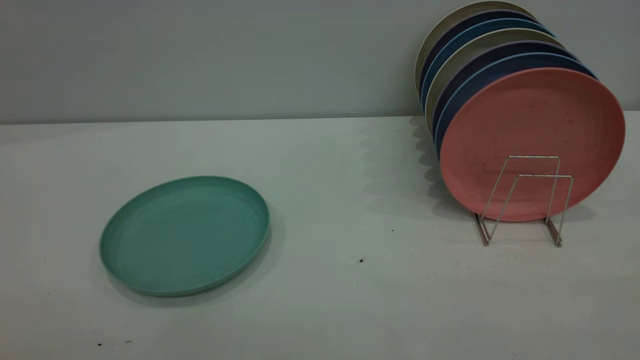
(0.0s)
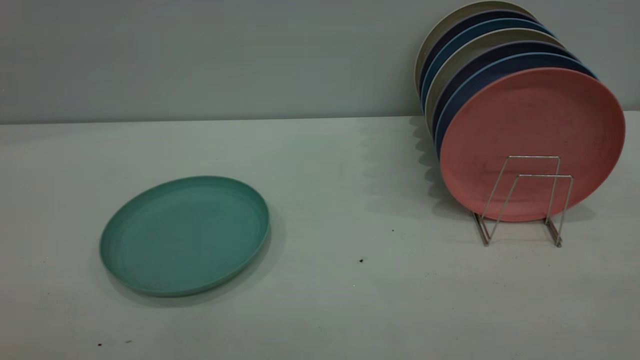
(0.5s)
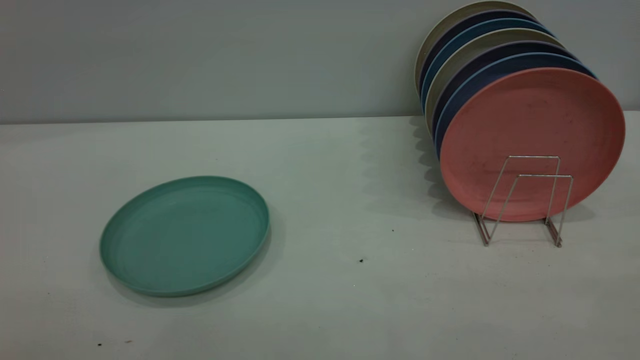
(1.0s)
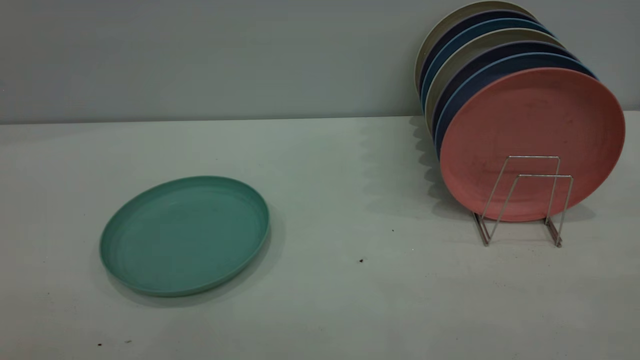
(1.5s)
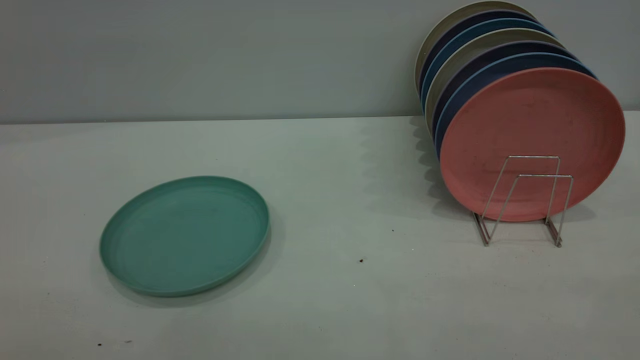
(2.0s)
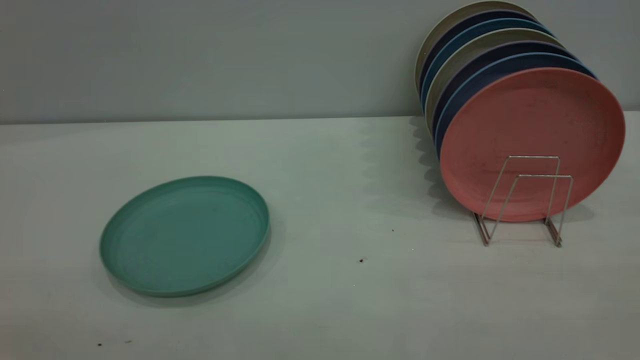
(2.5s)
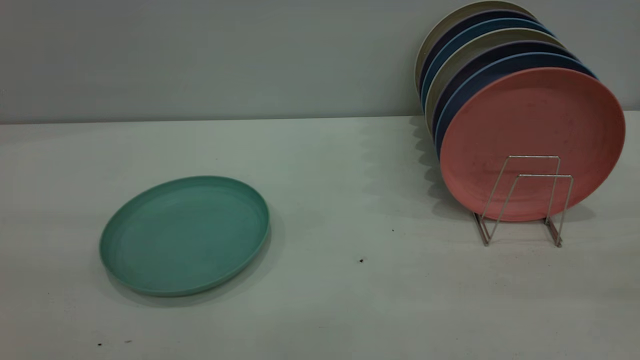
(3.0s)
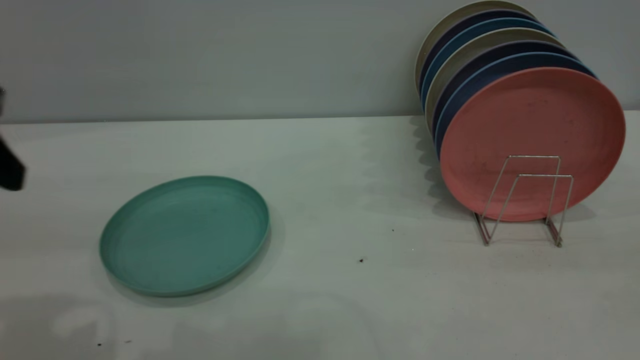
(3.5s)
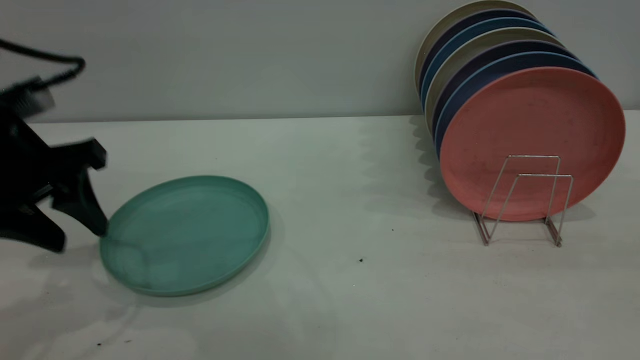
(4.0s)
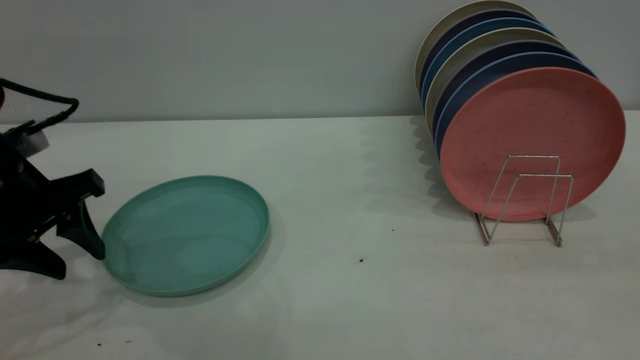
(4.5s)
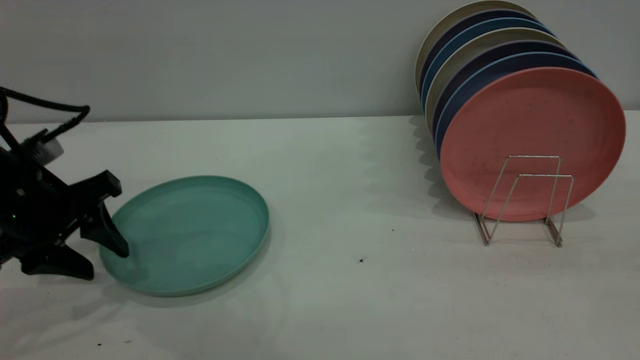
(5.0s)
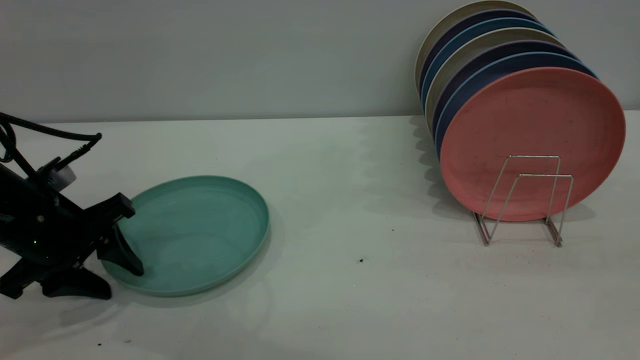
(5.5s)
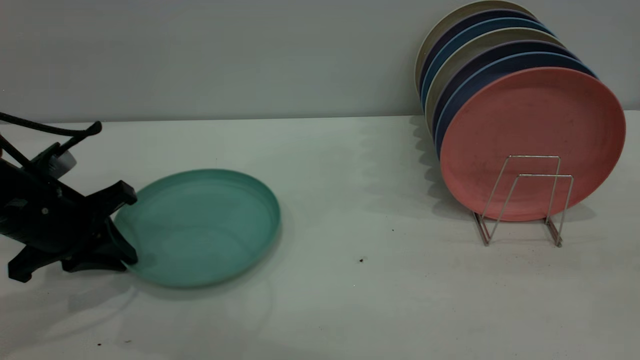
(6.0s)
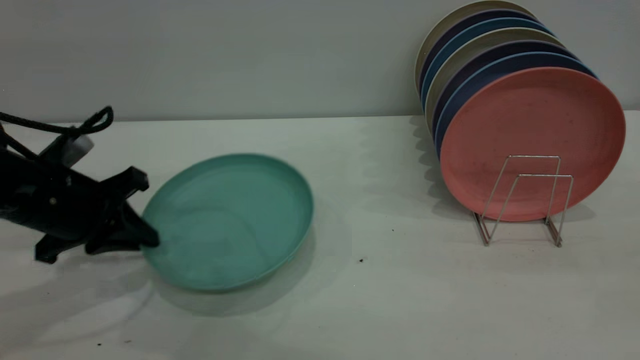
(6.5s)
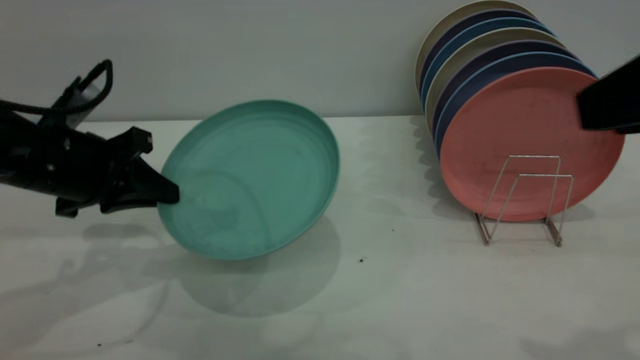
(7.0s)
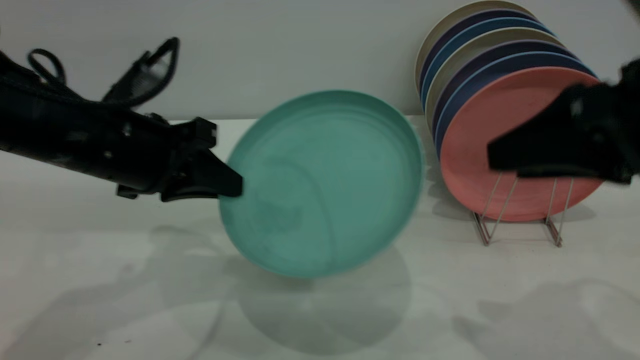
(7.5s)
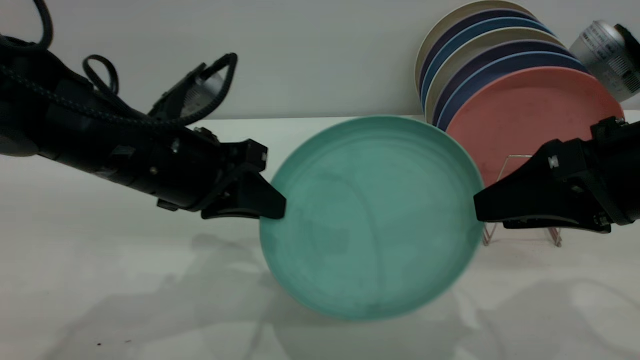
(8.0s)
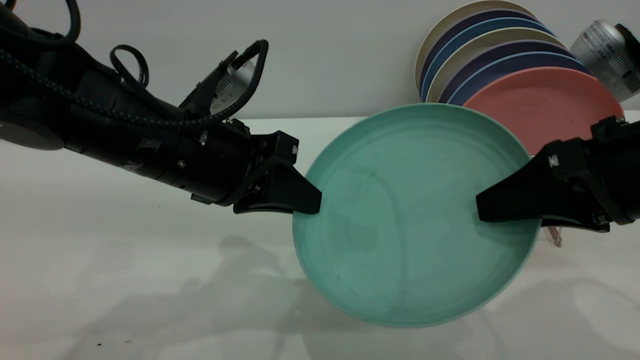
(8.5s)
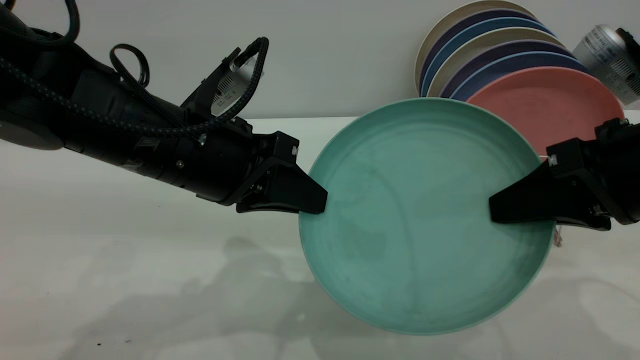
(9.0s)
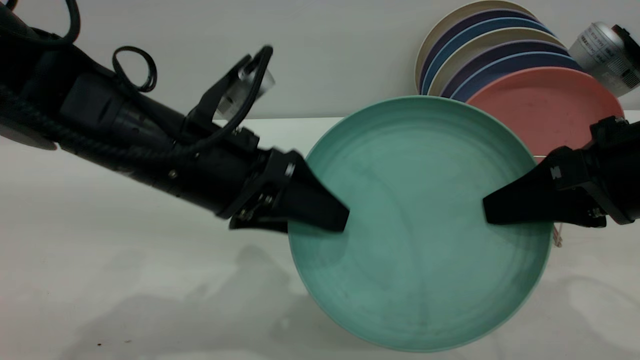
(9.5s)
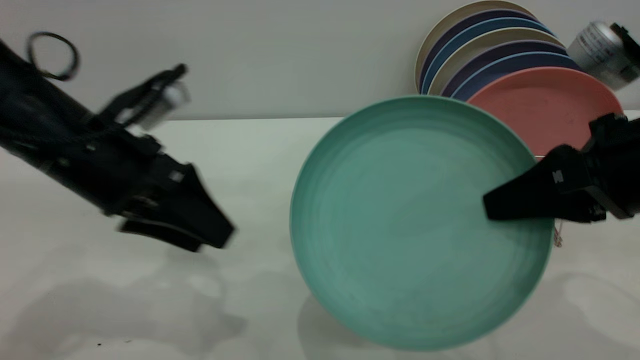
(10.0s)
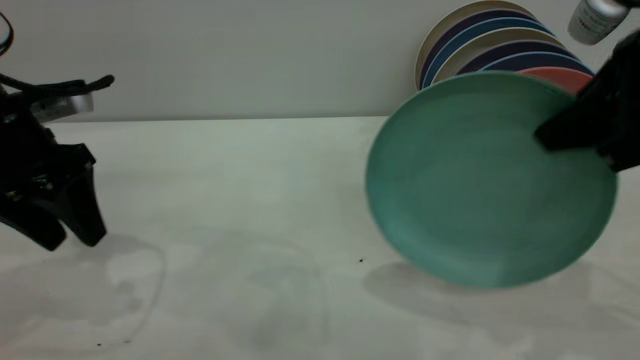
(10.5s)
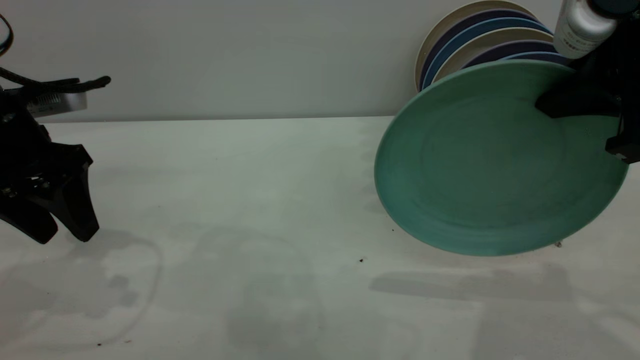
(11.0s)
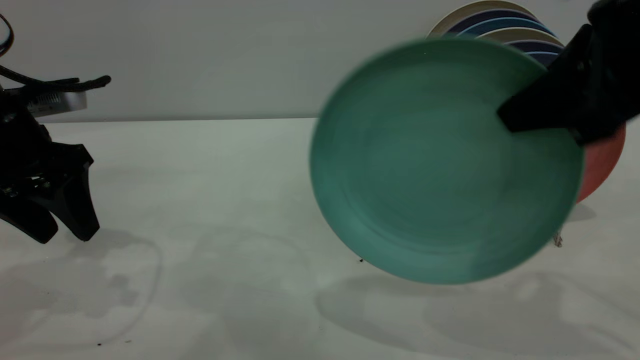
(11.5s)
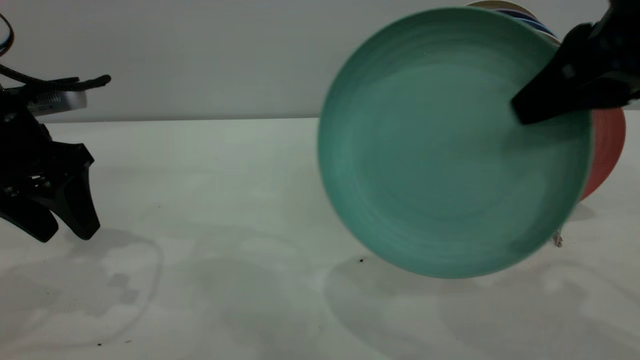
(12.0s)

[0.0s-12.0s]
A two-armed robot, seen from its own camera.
Task of the whole recording: the left gripper grasp the green plate, the left gripper pass the green plate to the right gripper, and the right gripper place the green plate on the plate rack.
Step, 0.0s to 6.5s: Pick up the plate with the left gripper.
Step, 7.5s to 10.0s: Pass the plate from the left gripper to the right gripper.
0.0s to 2.0s: Both grippers stay put.
2.0s to 4.0s: The left gripper goes approximately 35 cm forward and downward.
4.0s to 6.0s: The left gripper is displaced downward by about 10 cm, and closes.
6.0s to 8.0s: The right gripper is displaced downward and forward by some 15 cm, while the left gripper heads to the right and upward, covering roughly 15 cm.
8.0s to 10.0s: The left gripper is displaced to the left by about 5 cm, and opens up. The right gripper closes.
10.0s to 12.0s: The right gripper travels upward by roughly 10 cm, while the left gripper goes about 5 cm to the left.

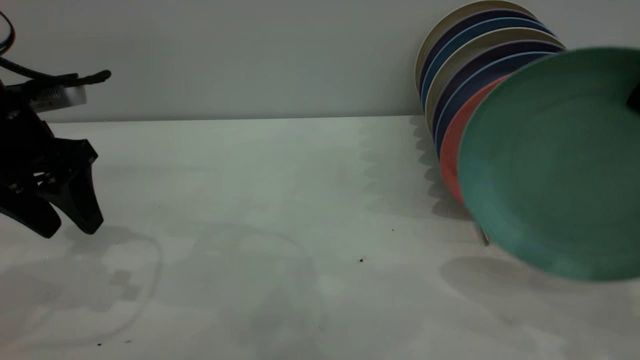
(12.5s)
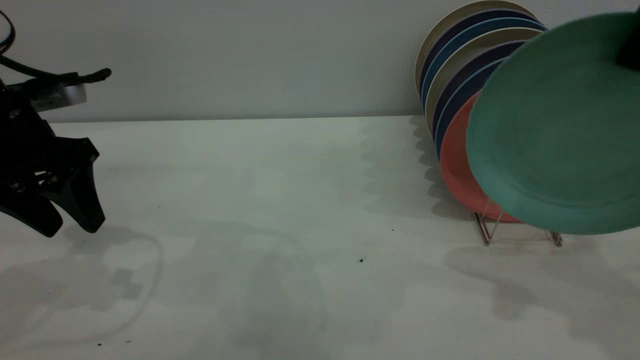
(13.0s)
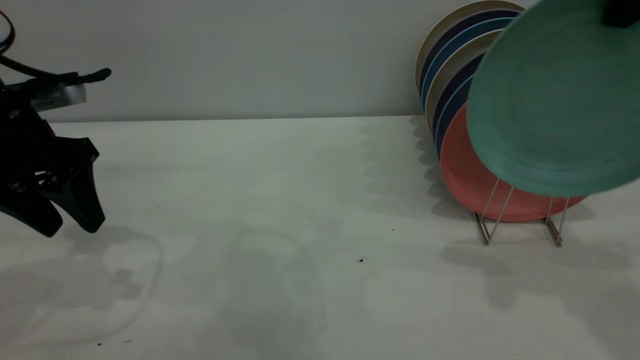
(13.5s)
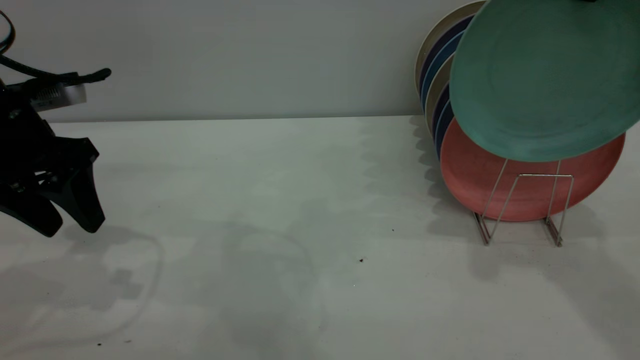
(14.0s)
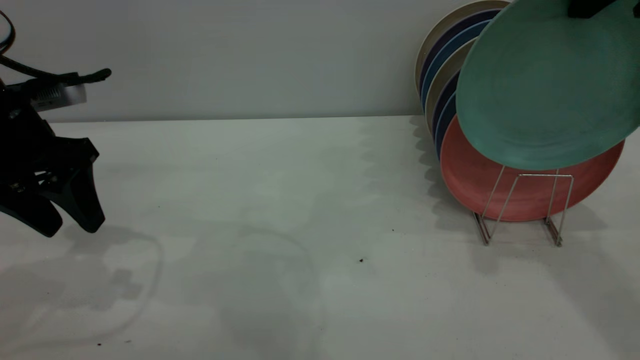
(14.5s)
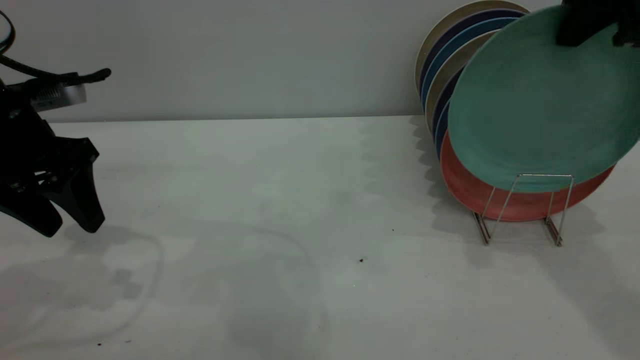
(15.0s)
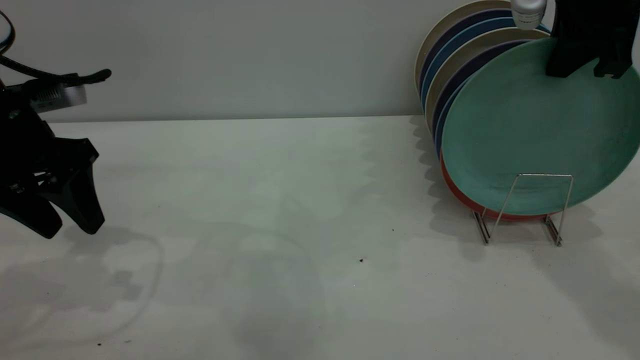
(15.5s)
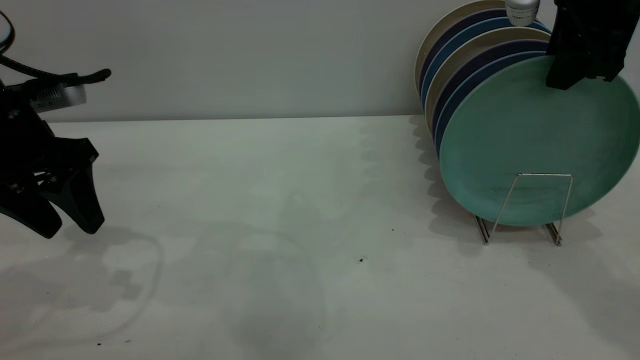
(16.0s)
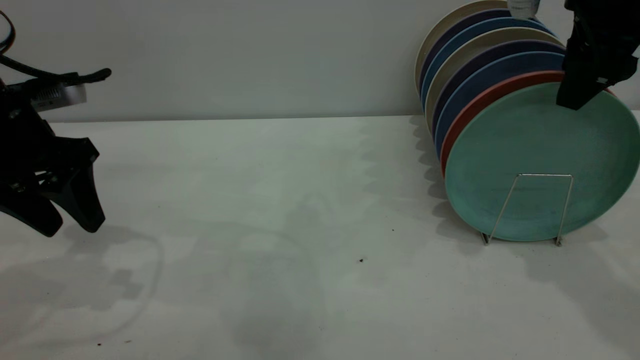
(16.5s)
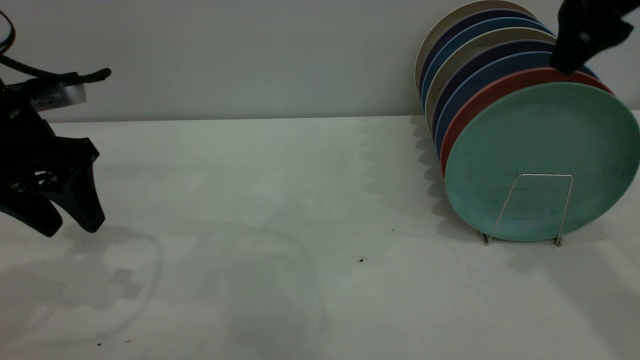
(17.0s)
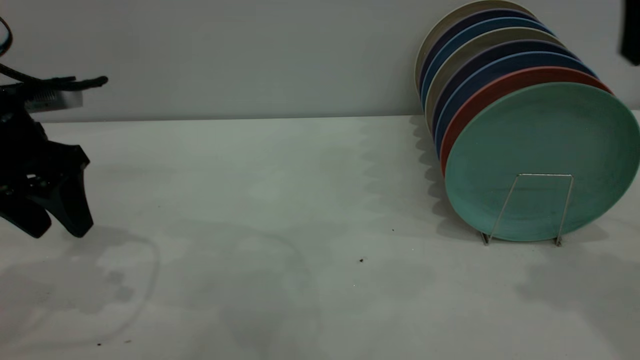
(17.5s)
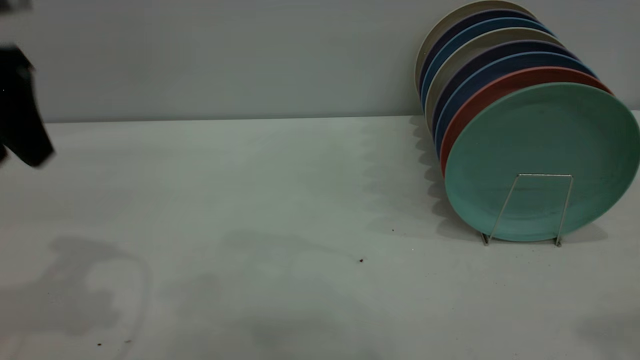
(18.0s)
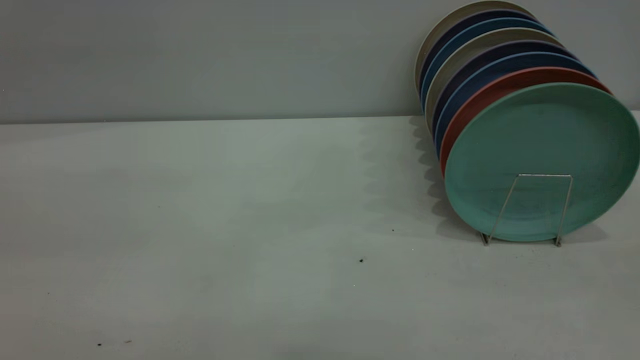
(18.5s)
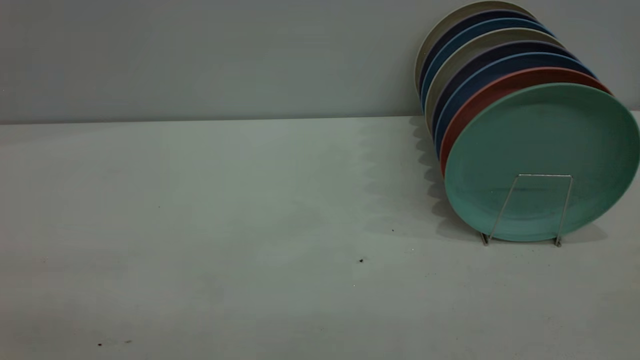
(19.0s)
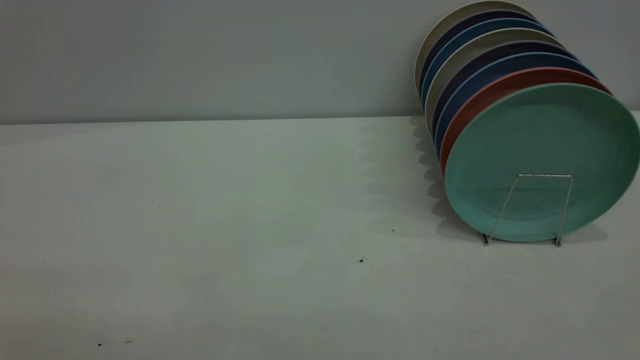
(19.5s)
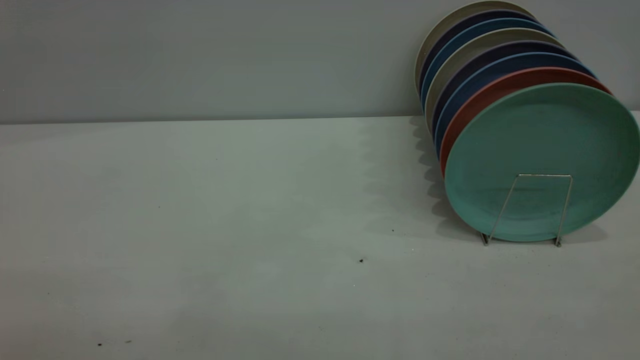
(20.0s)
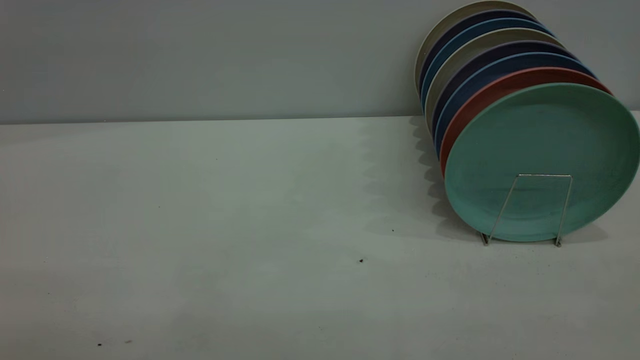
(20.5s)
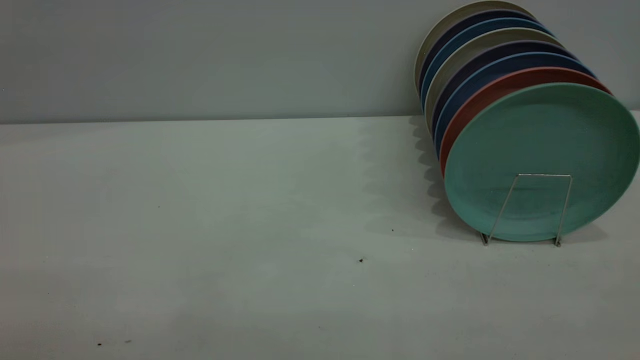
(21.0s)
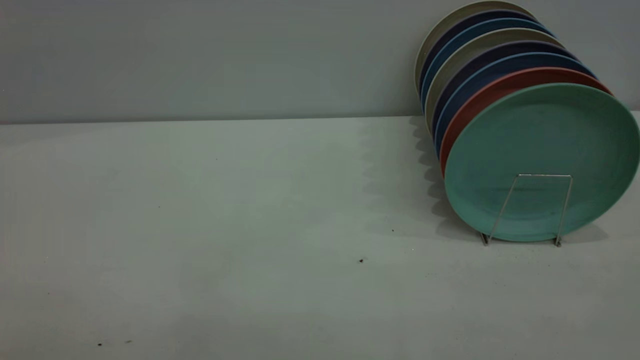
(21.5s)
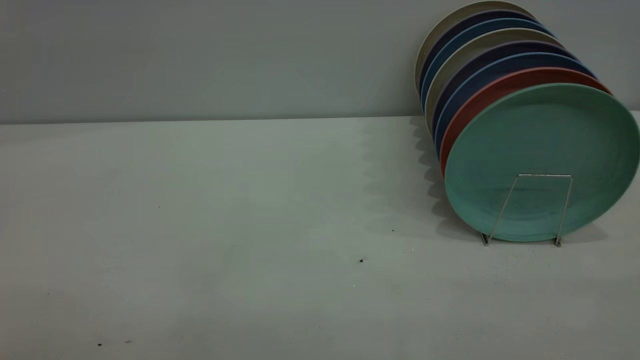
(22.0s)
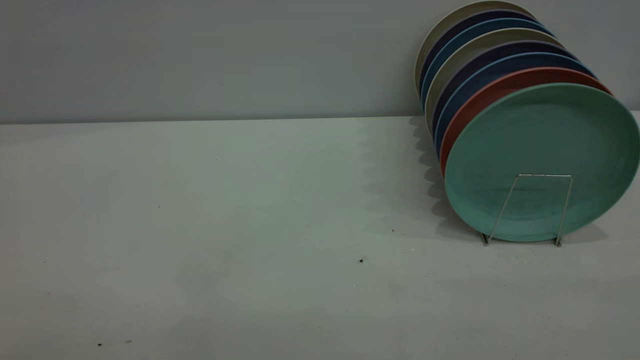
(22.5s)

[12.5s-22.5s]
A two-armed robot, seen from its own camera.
Task of the whole recording: the left gripper grasp the green plate, the left gripper pass the green plate to the right gripper, and the right gripper place the green plate on the plate rack.
Step, 12.5s to 17.0s: Place the plate on the shelf.
12.5s to 14.5s: The right gripper shifts some 10 cm forward.
14.5s to 16.5s: The right gripper heads downward, covering some 5 cm, and opens up.
16.5s to 18.5s: The left gripper is displaced backward and upward by approximately 30 cm. Meanwhile the right gripper shifts approximately 35 cm backward.
